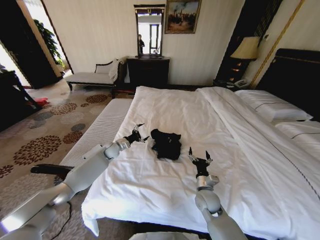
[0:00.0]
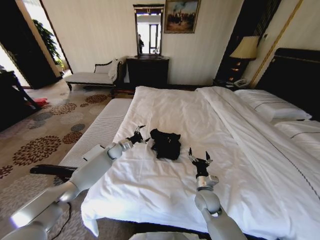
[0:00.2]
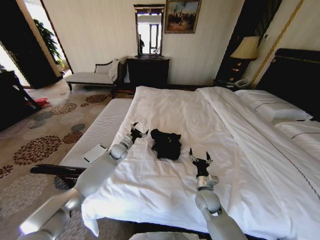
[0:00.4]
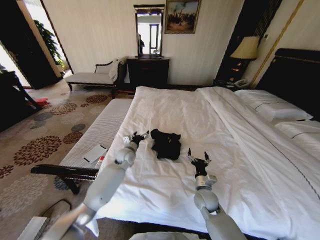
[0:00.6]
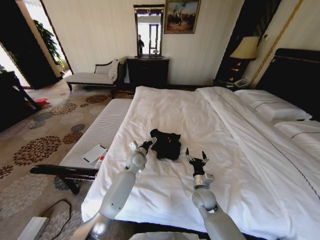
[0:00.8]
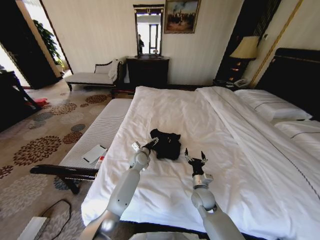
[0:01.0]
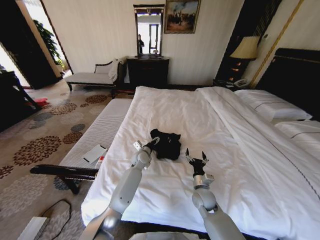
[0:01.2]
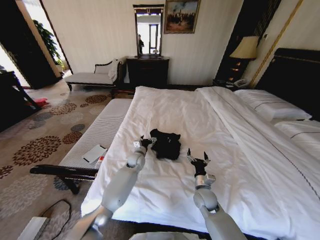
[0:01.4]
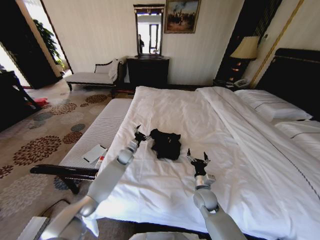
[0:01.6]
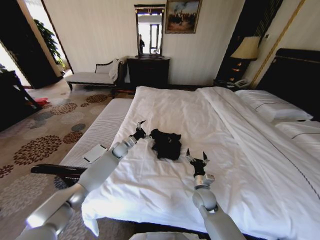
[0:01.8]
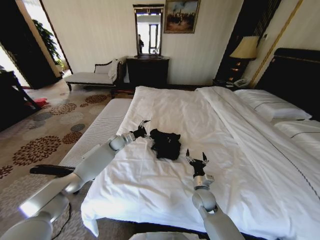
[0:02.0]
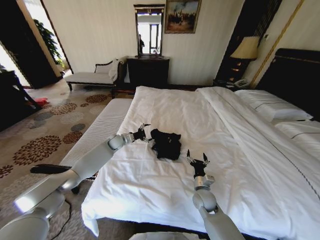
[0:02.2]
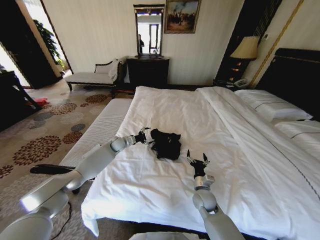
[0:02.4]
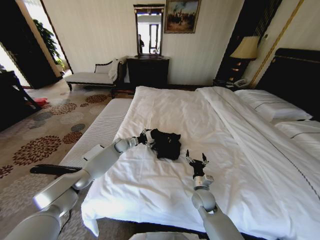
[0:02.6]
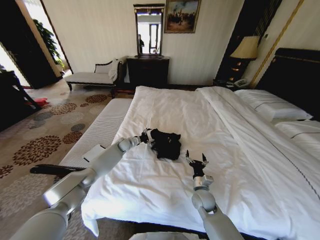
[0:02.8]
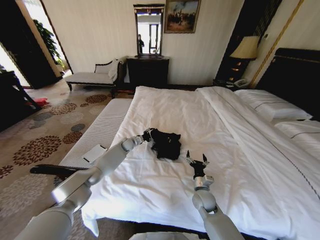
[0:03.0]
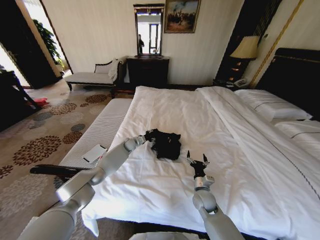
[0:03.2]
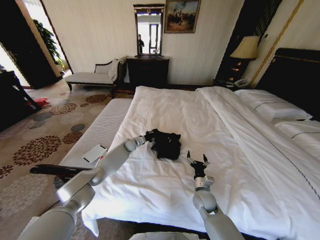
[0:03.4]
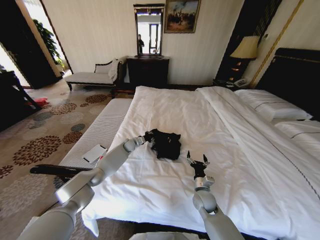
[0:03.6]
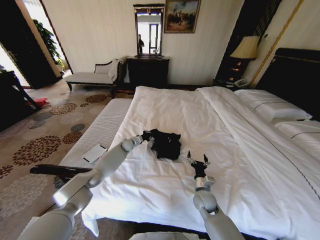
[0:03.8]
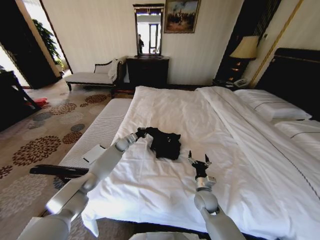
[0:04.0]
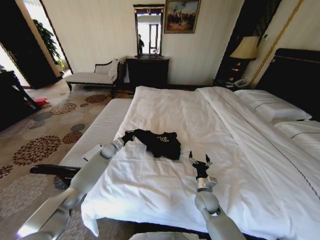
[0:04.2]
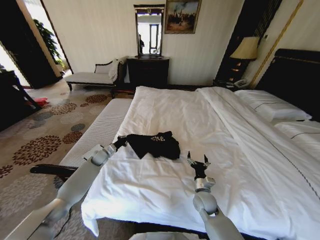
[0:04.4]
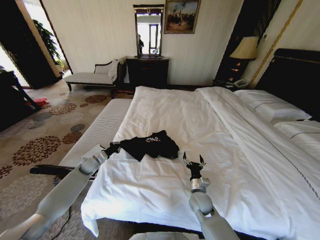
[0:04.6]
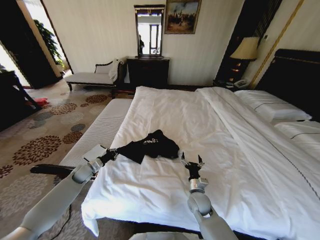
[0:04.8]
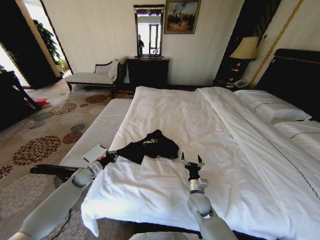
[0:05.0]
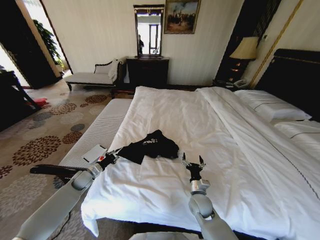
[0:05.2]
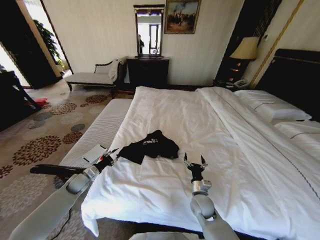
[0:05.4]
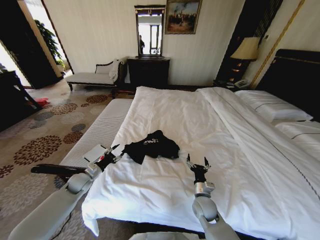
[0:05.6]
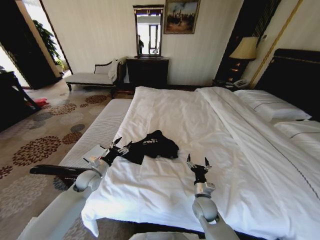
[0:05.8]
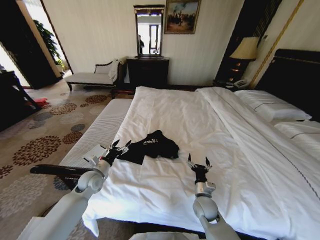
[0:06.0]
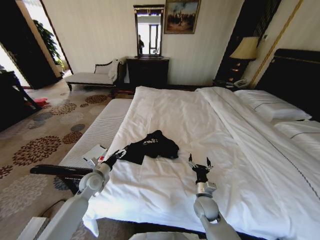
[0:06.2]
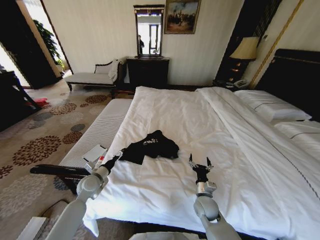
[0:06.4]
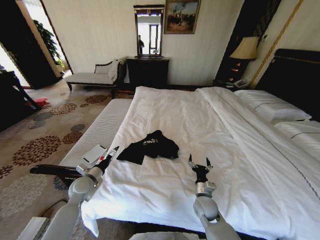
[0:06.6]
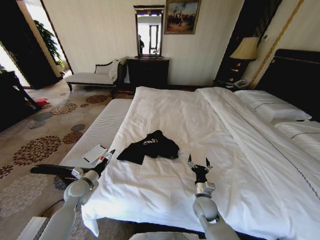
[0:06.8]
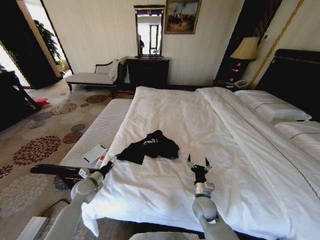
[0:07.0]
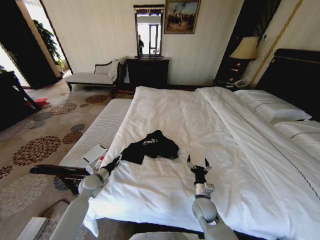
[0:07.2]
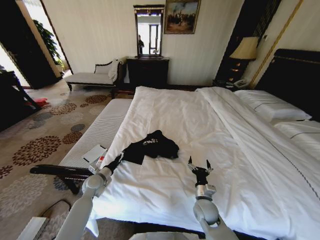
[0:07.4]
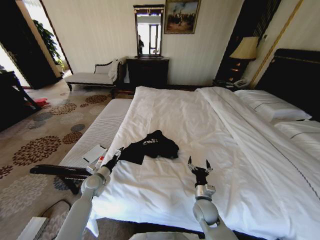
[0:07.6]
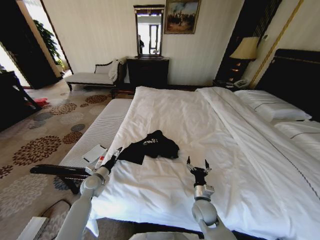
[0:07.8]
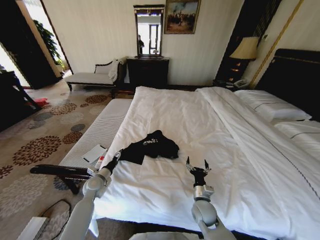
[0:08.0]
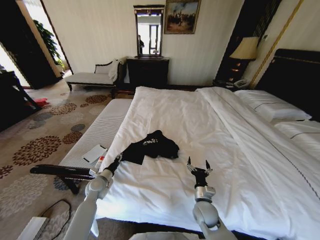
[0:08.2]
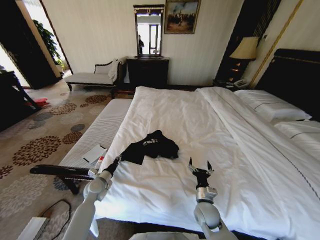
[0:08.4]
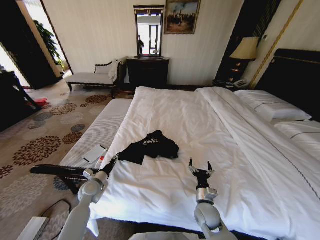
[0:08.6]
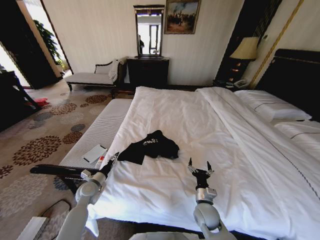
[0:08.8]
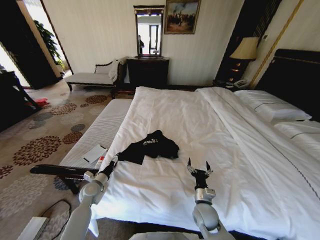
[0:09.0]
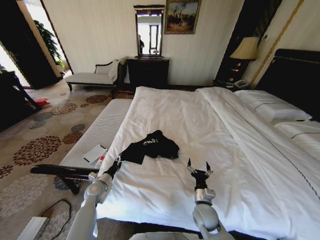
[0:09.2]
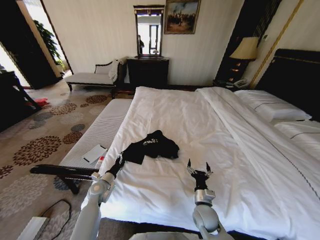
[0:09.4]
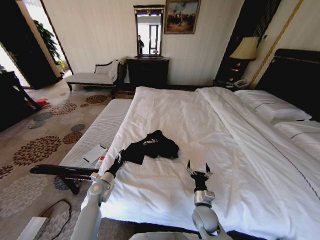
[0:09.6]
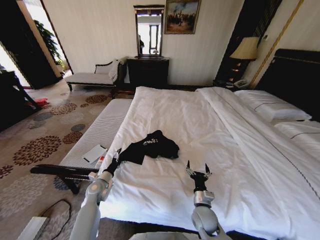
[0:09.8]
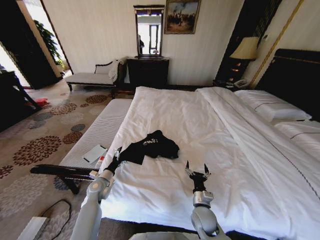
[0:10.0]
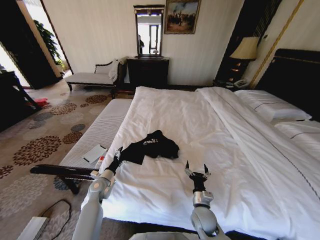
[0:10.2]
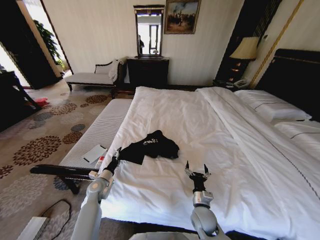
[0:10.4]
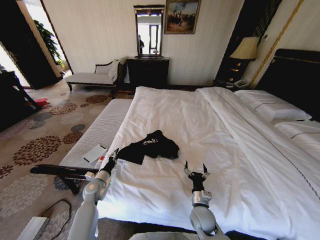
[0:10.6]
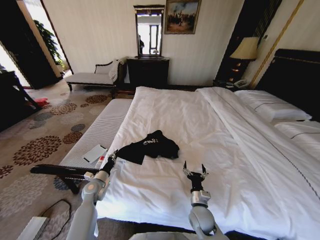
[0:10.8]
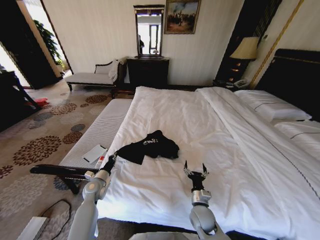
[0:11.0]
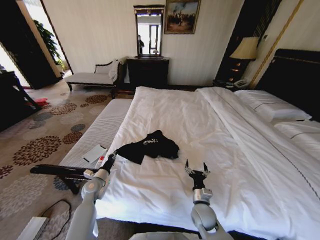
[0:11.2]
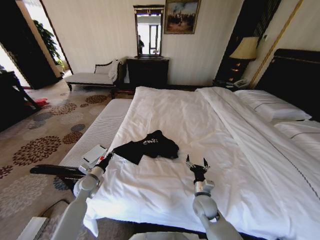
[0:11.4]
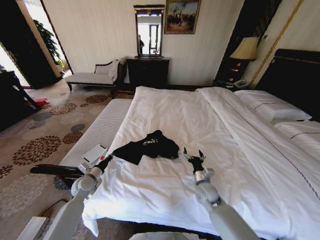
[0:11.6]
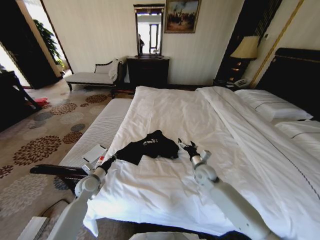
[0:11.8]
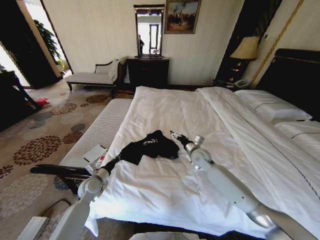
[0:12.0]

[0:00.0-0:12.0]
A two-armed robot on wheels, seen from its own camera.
Task of the whole recording: Fold the clothes on the bed.
0:00.0 to 0:01.6: The left gripper moves to the right, some 10 cm.
0:01.6 to 0:03.0: The left gripper travels forward by approximately 10 cm.
0:03.0 to 0:04.4: The left gripper goes about 20 cm to the left and backward, and closes.
0:04.4 to 0:06.0: The left gripper heads backward, covering some 15 cm, and opens.
0:07.6 to 0:09.0: The left gripper closes and opens again.
0:09.0 to 0:10.4: The grippers stay close to where they were, moving slightly.
0:10.4 to 0:12.0: The left gripper closes. The right gripper shifts approximately 25 cm forward and upward.

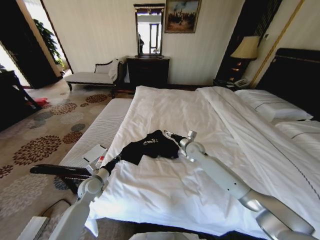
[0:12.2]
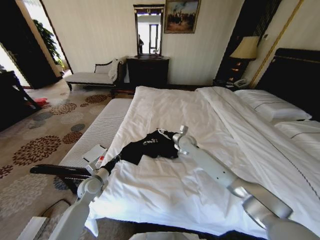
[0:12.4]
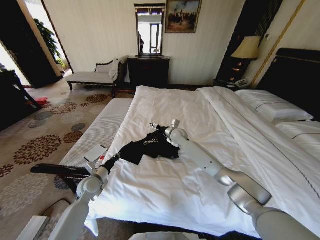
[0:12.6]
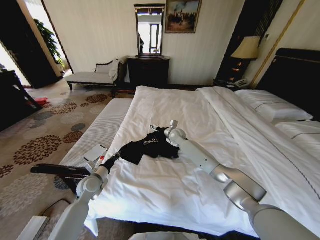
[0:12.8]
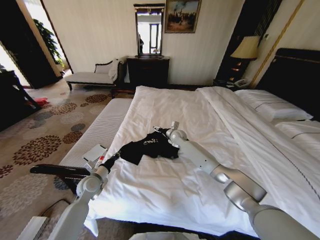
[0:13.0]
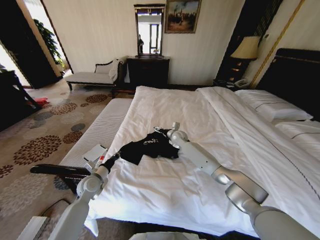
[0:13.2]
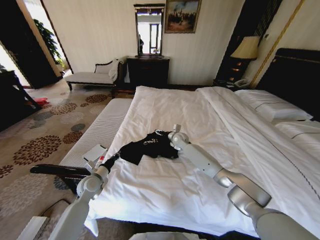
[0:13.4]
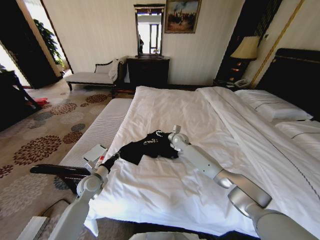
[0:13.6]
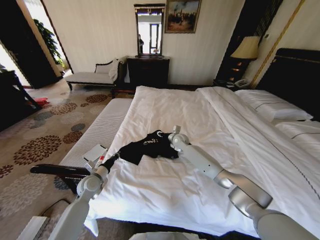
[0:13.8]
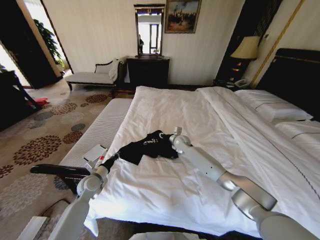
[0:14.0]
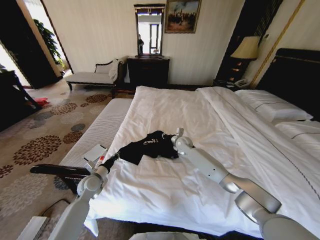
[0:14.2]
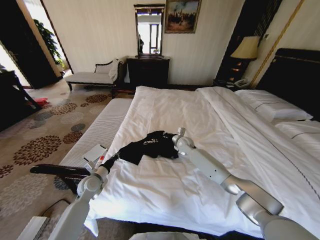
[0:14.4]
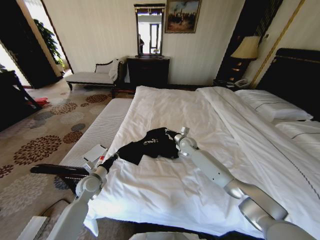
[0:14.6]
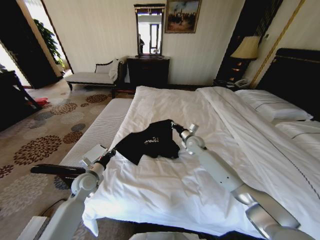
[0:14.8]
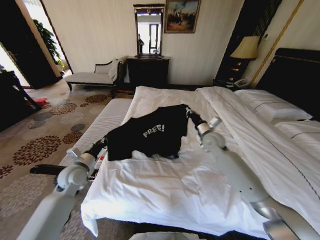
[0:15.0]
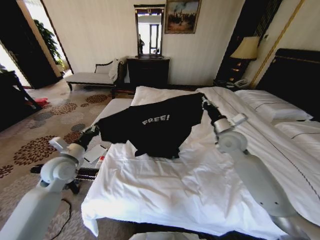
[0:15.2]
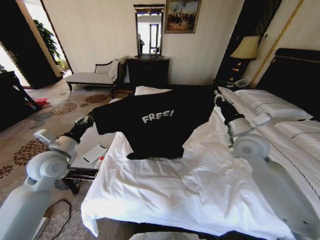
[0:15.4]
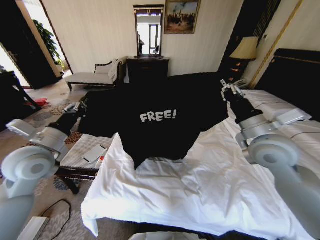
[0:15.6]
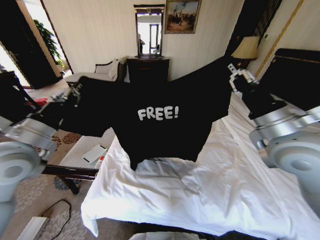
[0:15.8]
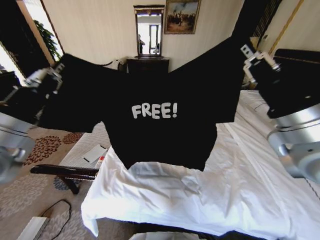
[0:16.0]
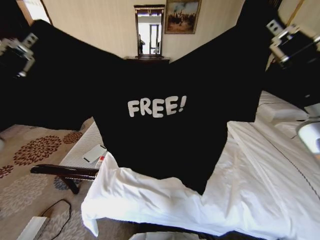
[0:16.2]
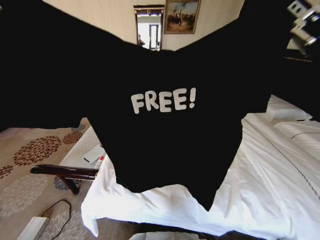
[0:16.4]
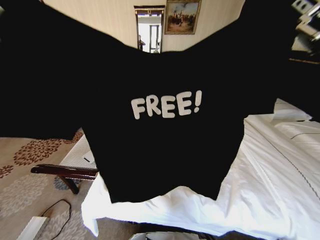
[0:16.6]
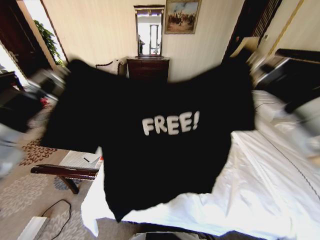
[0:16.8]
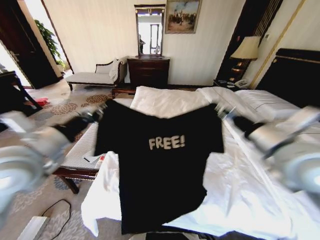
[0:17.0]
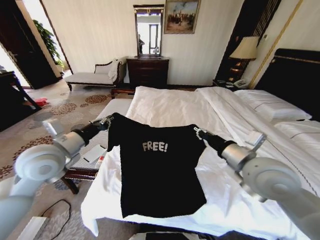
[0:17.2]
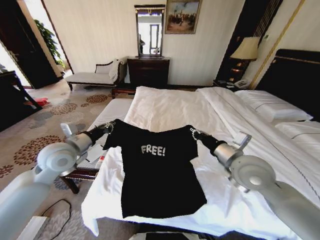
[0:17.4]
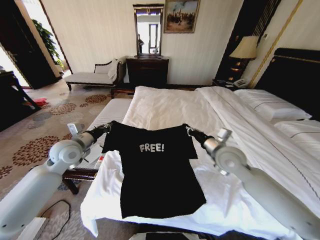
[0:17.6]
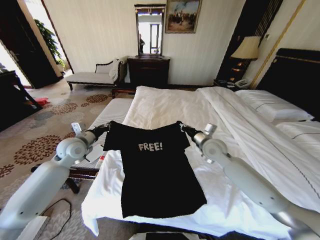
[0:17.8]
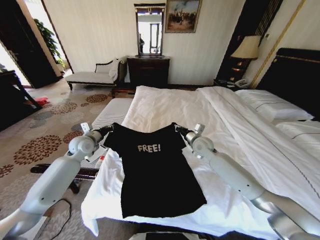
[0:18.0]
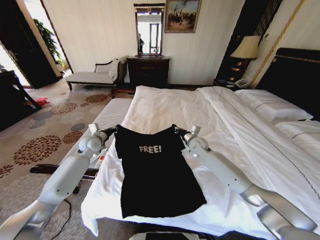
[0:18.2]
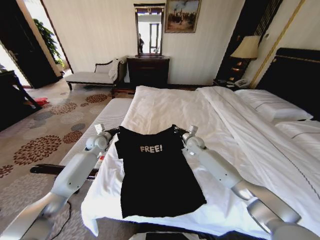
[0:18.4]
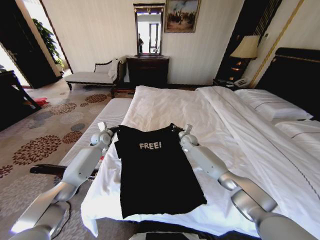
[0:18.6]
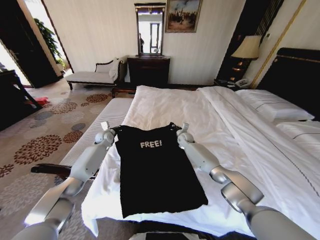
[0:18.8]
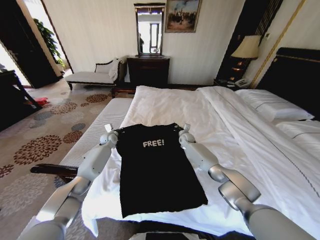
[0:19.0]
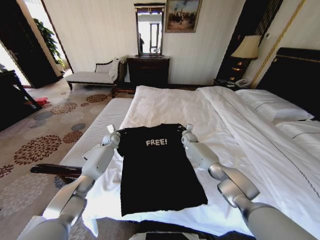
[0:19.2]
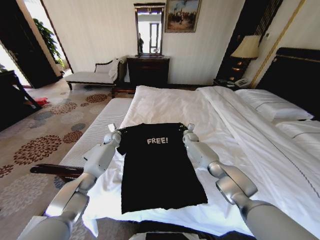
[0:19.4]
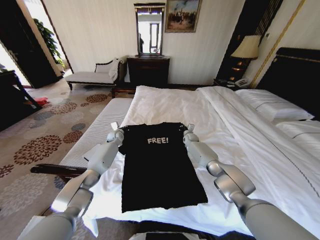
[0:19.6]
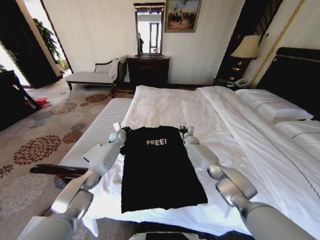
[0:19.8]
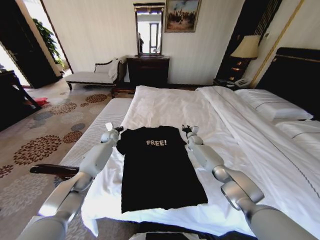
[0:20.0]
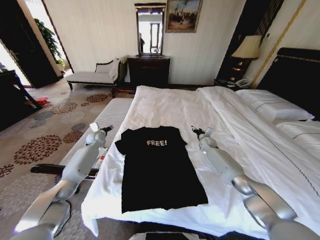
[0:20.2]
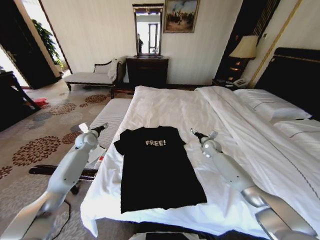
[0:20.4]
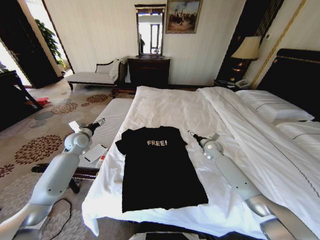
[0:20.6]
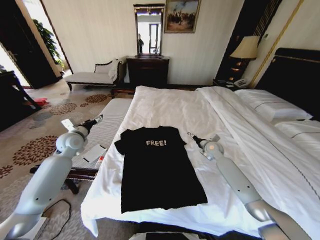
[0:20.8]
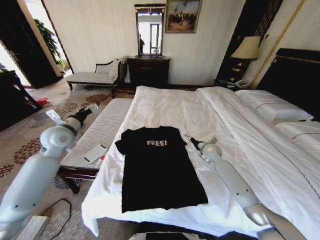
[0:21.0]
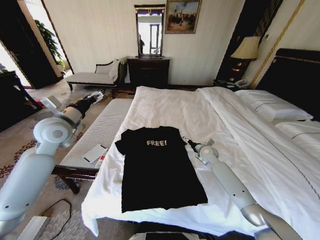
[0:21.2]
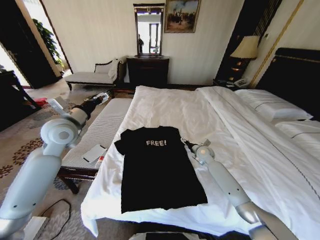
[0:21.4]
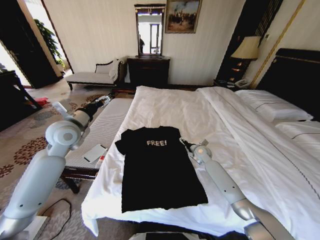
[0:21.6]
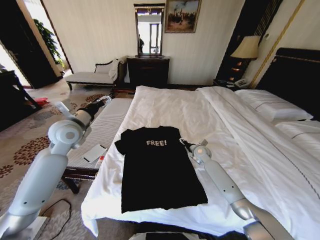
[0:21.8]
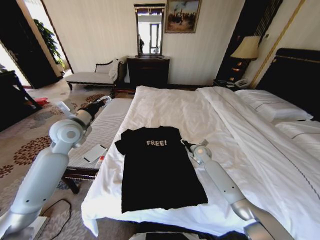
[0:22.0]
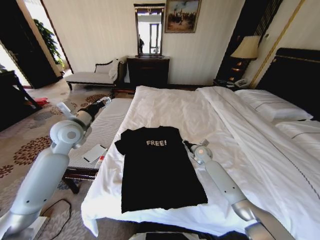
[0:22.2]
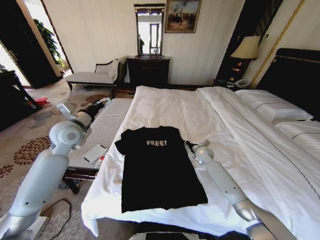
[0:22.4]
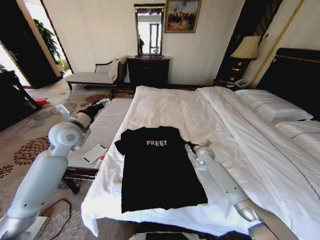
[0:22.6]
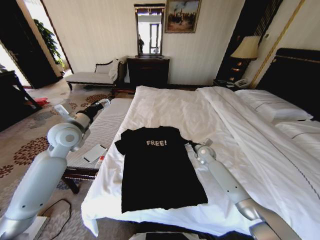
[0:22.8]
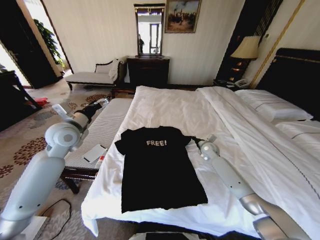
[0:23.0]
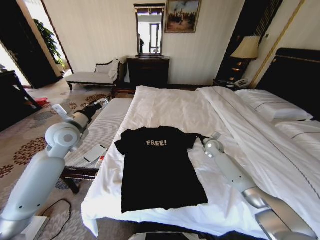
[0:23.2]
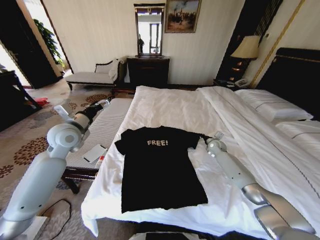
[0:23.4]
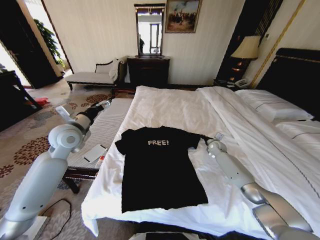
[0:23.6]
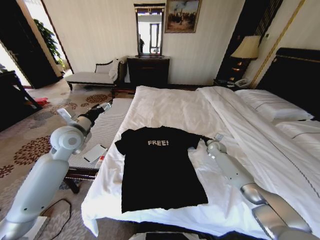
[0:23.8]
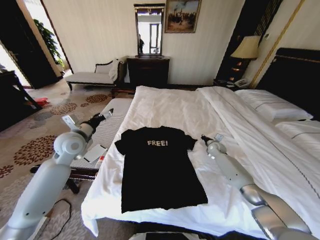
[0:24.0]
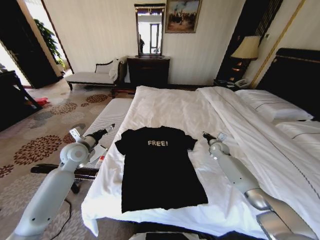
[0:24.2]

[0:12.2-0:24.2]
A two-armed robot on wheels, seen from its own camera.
Task of the whole recording: Fold the clothes on the bed.
0:12.2 to 0:13.8: The right gripper heads forward and to the left, covering roughly 10 cm, and closes its fingers.
0:13.8 to 0:15.2: The right gripper shifts about 25 cm to the right, upward and backward, and closes, while the left gripper shifts approximately 15 cm upward.
0:15.2 to 0:16.6: Both grippers travel together upward and backward, some 30 cm.
0:16.6 to 0:18.2: The left gripper is displaced forward and downward by approximately 40 cm. The right gripper heads downward and forward, covering roughly 50 cm.
0:18.2 to 0:19.8: The right gripper heads forward and downward, covering some 15 cm. The left gripper travels forward, to the right and downward by some 15 cm.
0:19.8 to 0:21.2: The right gripper travels backward and upward by about 15 cm, and opens up. The left gripper goes some 35 cm upward, backward and to the left, and opens.
0:21.2 to 0:22.6: The right gripper closes.
0:22.6 to 0:24.2: The right gripper travels to the right by approximately 10 cm. Meanwhile the left gripper is displaced downward by roughly 10 cm.
